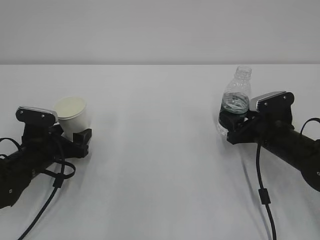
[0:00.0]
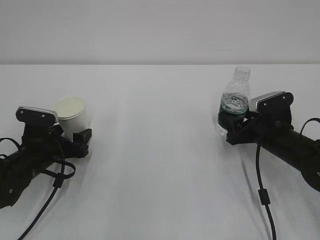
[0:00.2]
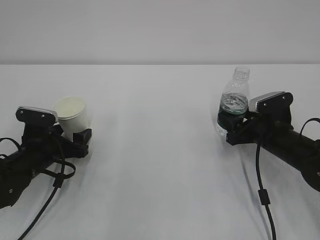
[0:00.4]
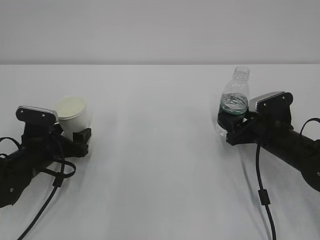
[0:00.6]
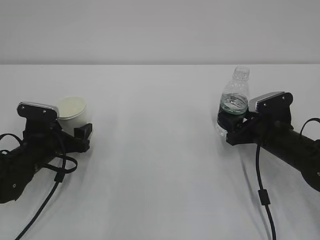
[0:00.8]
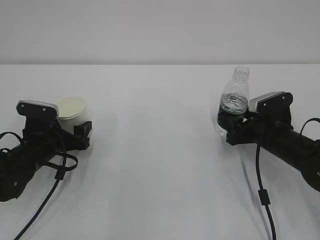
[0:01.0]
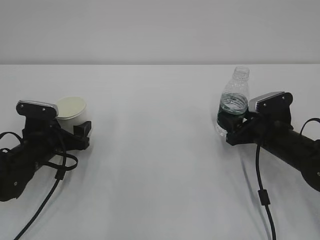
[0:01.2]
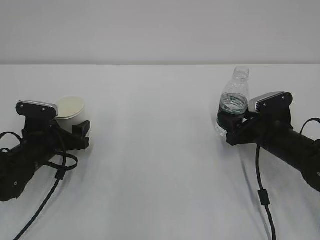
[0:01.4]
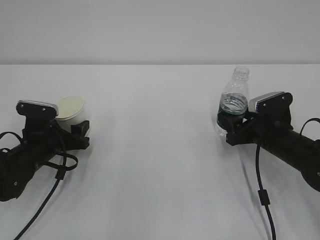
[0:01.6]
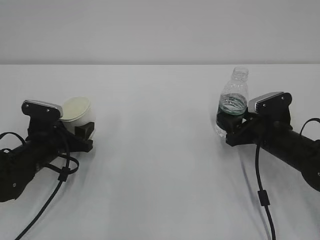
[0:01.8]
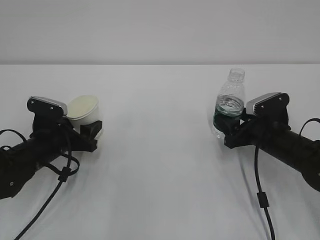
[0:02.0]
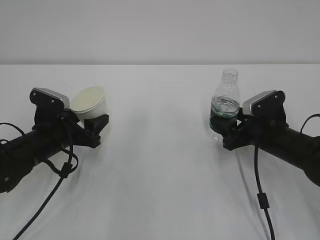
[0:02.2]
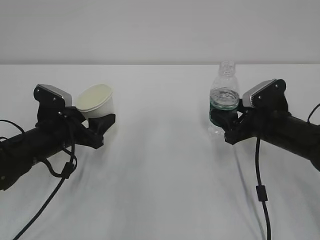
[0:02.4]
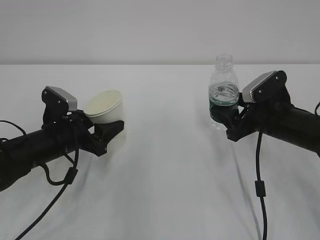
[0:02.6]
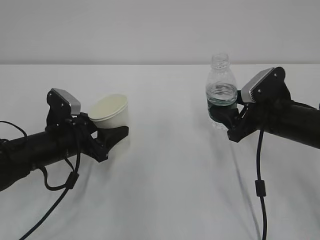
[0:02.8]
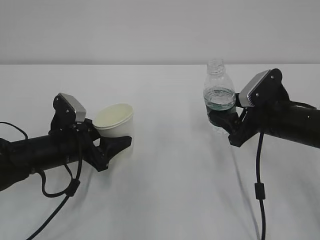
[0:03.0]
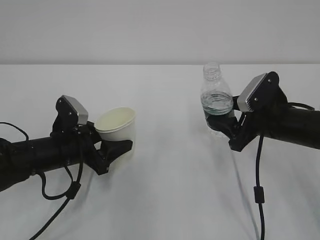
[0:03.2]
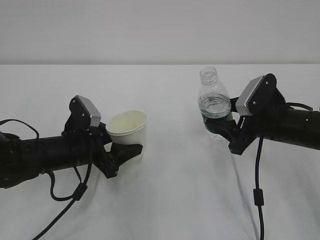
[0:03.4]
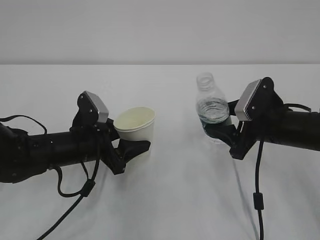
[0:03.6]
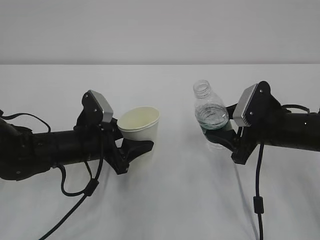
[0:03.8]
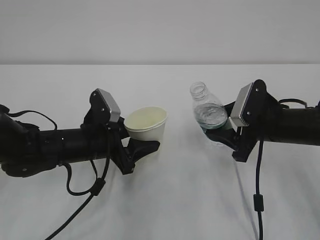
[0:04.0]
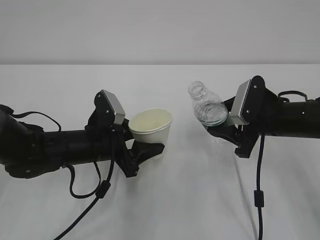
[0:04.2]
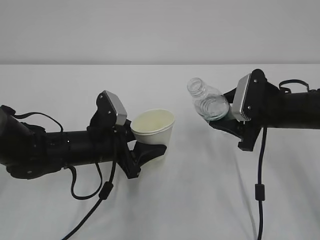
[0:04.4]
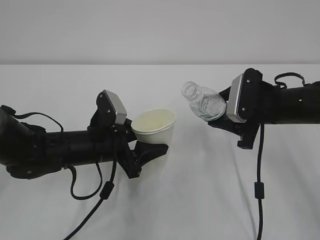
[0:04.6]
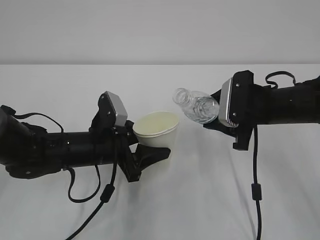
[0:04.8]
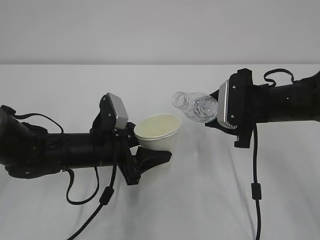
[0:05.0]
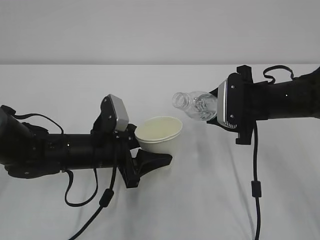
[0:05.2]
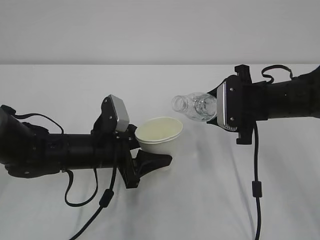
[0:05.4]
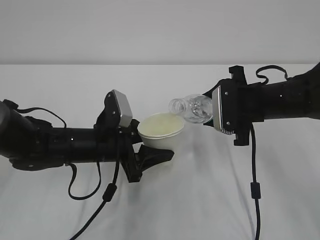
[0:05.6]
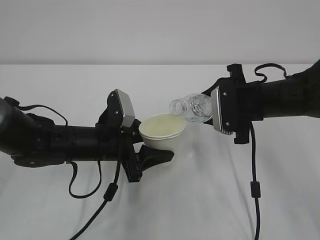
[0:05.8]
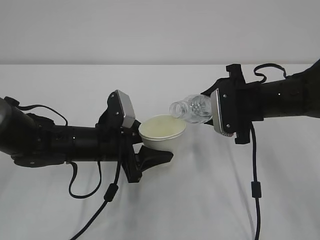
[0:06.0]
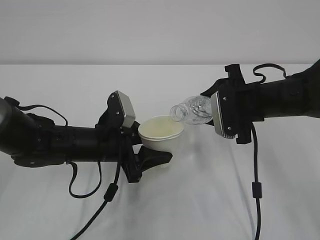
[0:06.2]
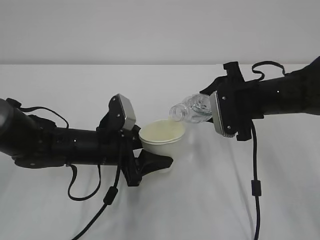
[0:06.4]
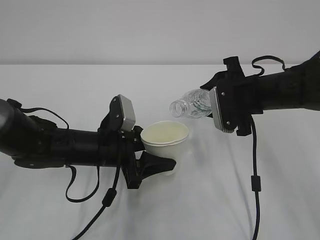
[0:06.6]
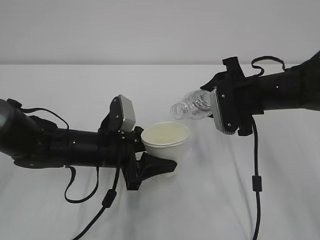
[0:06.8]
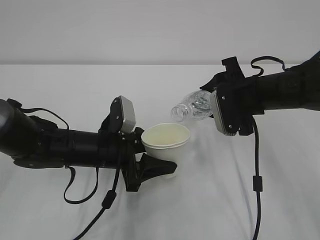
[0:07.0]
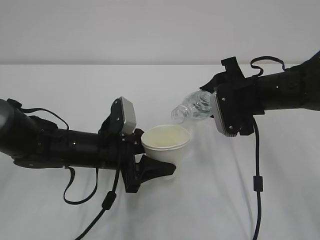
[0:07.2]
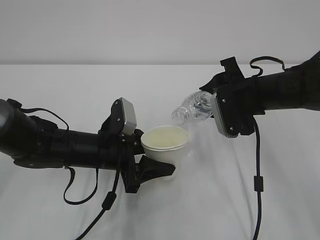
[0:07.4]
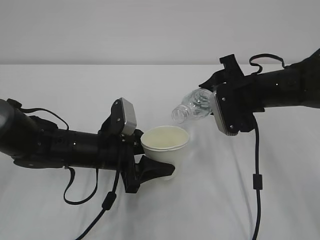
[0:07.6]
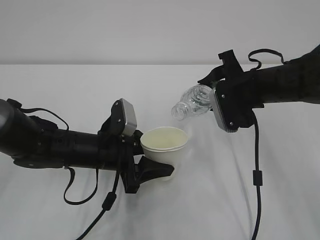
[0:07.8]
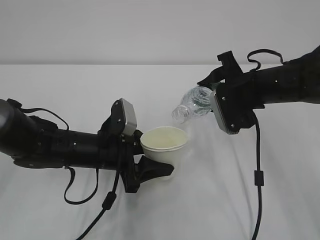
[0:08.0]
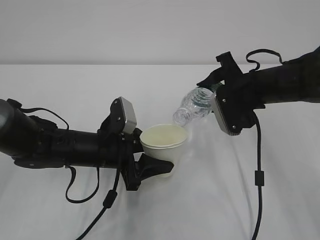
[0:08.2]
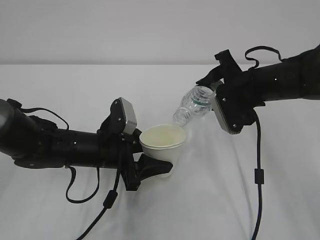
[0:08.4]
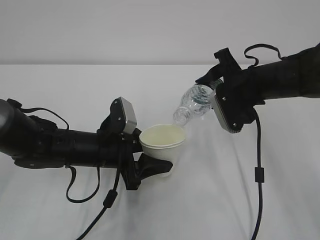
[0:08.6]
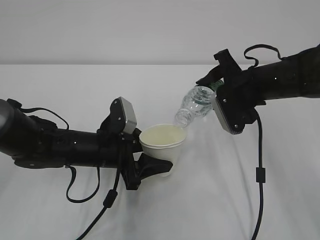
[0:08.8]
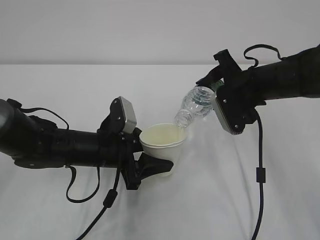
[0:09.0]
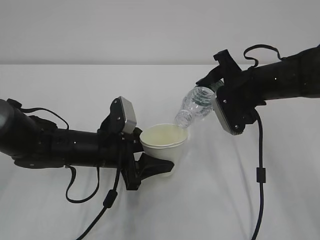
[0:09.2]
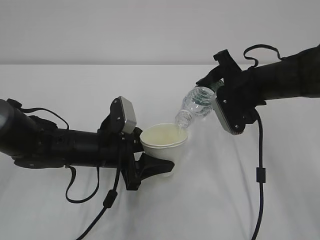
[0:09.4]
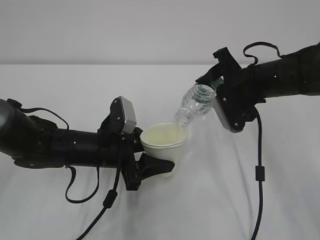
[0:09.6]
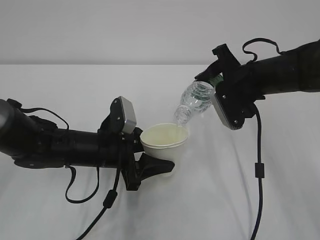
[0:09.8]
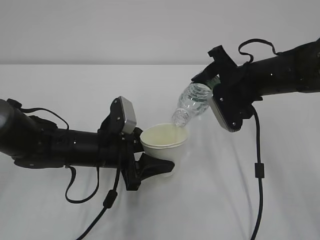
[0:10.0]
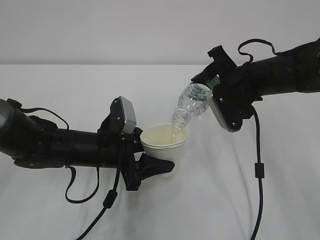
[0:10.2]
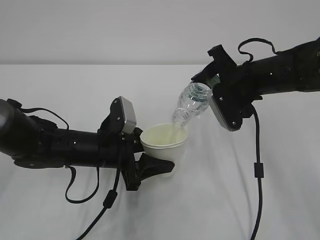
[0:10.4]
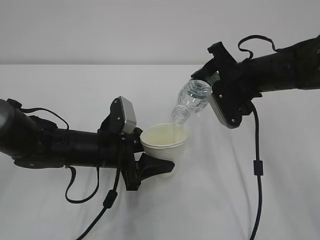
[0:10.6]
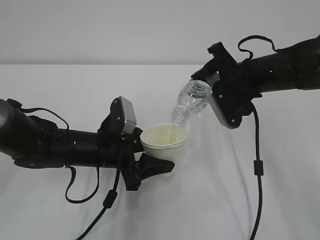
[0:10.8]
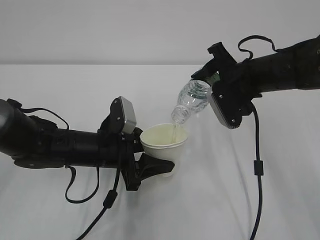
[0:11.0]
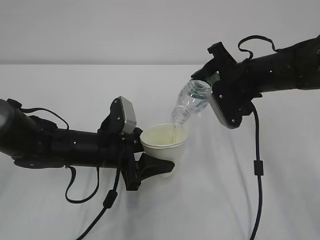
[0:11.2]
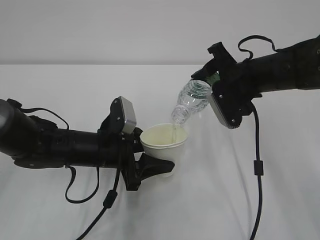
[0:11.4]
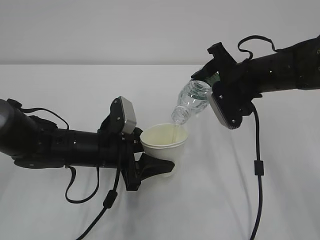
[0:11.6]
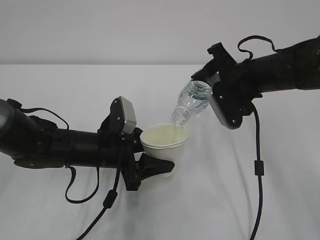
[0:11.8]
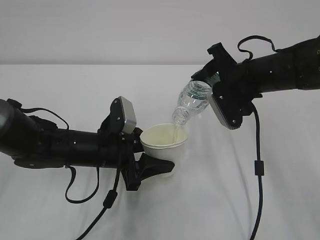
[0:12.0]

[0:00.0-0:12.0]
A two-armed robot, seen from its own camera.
0:00.0 to 0:01.6: The left gripper closes up.
0:01.6 to 0:03.0: The right gripper shifts roughly 5 cm upward; the left gripper goes roughly 5 cm to the right.
0:03.0 to 0:04.4: The left gripper goes some 5 cm to the right.
0:06.0 to 0:07.6: The grippers make only small movements.
0:07.6 to 0:09.0: The grippers stay close to where they were, moving slightly.
0:09.0 to 0:10.4: The two grippers keep their place.
0:10.4 to 0:12.0: Both grippers stay put.

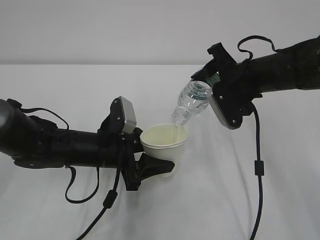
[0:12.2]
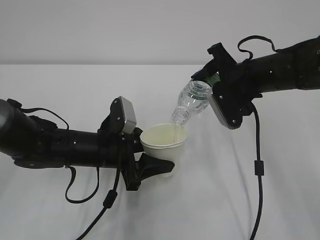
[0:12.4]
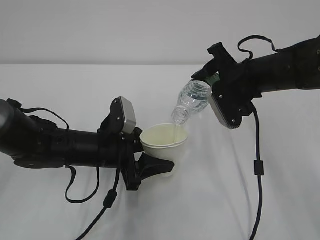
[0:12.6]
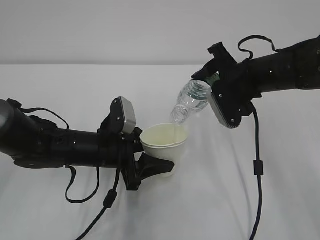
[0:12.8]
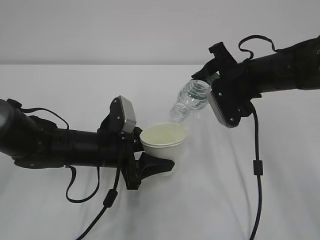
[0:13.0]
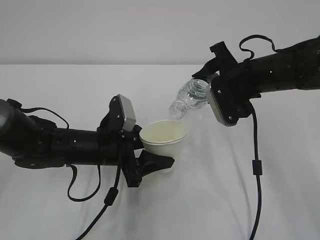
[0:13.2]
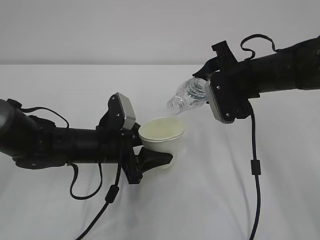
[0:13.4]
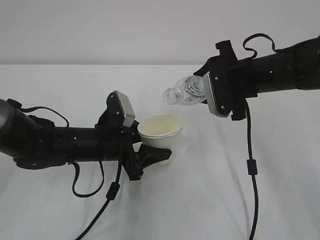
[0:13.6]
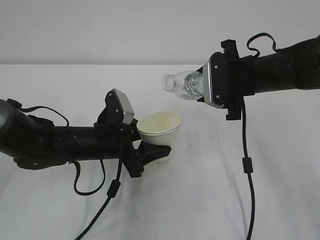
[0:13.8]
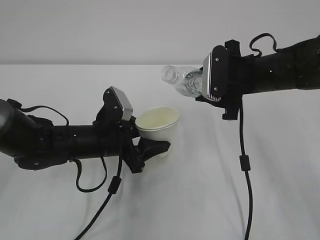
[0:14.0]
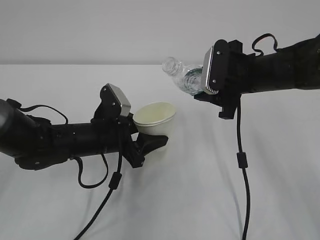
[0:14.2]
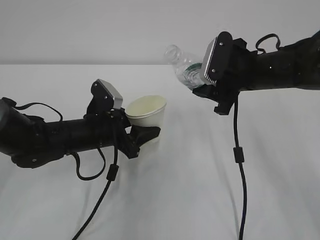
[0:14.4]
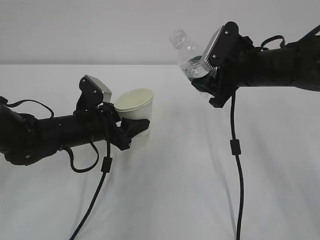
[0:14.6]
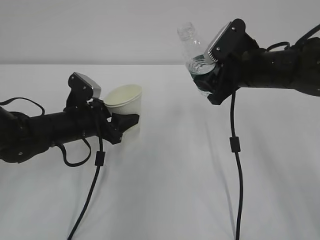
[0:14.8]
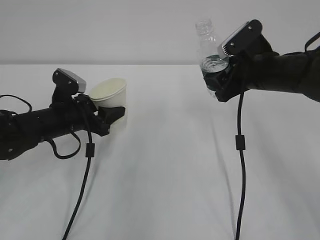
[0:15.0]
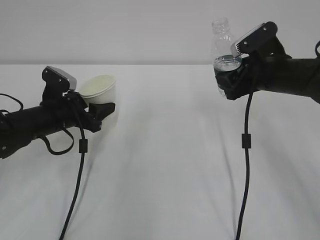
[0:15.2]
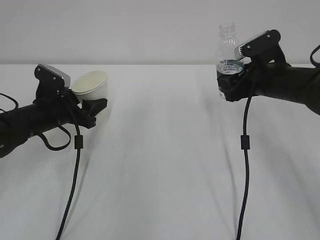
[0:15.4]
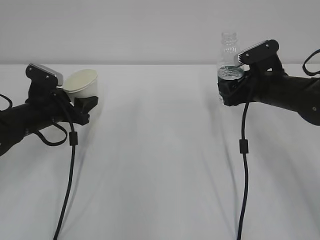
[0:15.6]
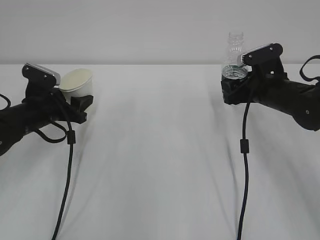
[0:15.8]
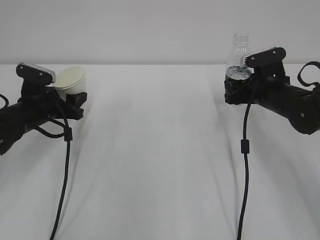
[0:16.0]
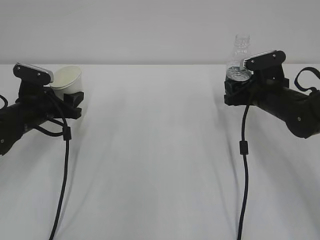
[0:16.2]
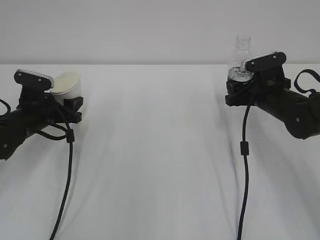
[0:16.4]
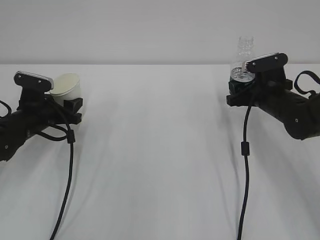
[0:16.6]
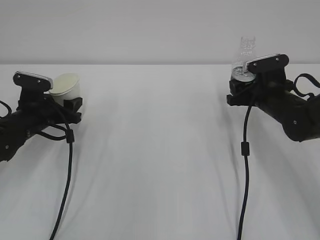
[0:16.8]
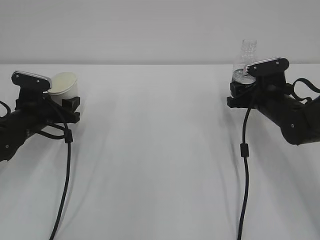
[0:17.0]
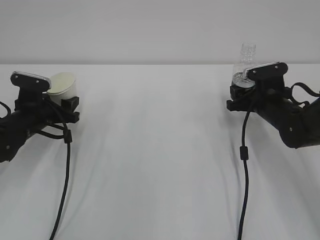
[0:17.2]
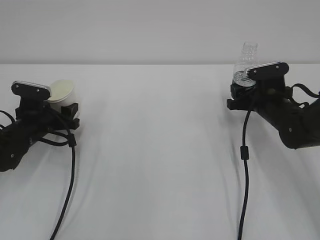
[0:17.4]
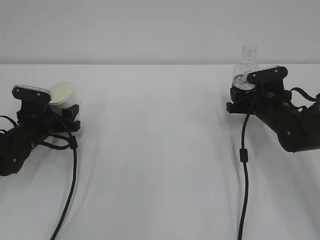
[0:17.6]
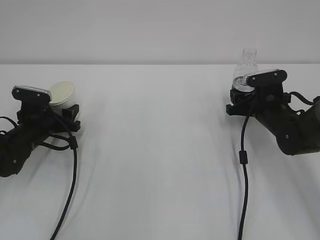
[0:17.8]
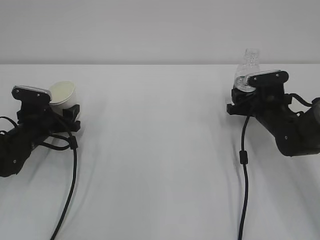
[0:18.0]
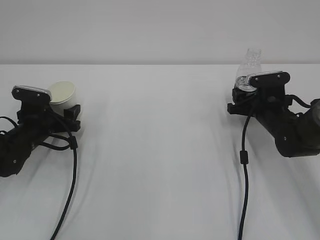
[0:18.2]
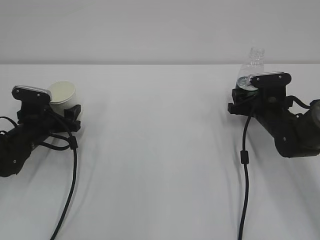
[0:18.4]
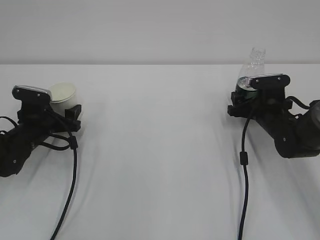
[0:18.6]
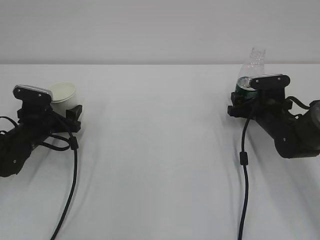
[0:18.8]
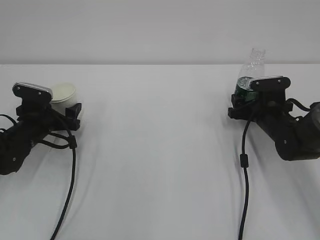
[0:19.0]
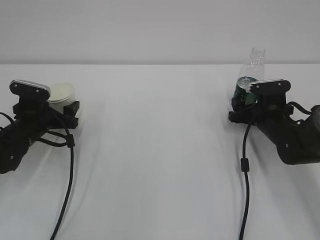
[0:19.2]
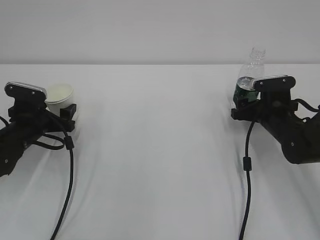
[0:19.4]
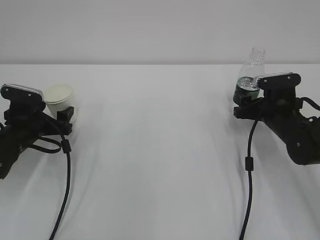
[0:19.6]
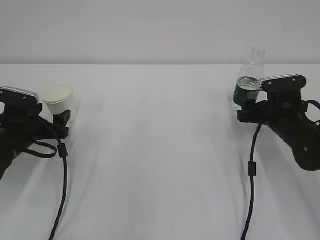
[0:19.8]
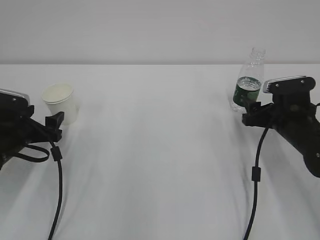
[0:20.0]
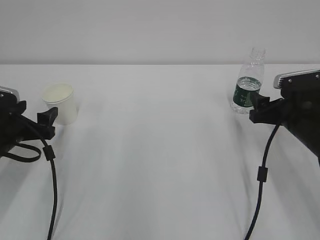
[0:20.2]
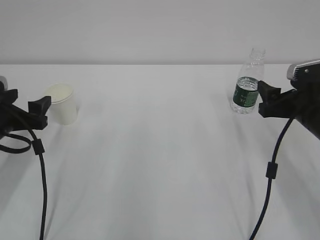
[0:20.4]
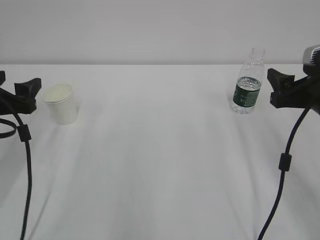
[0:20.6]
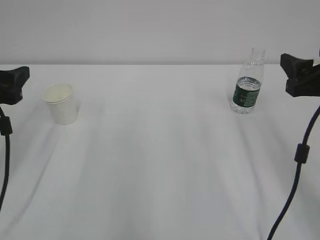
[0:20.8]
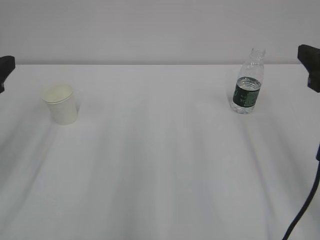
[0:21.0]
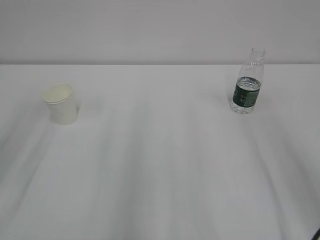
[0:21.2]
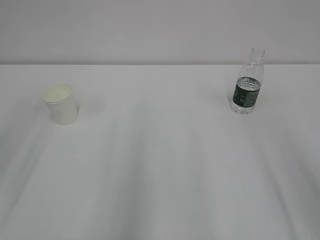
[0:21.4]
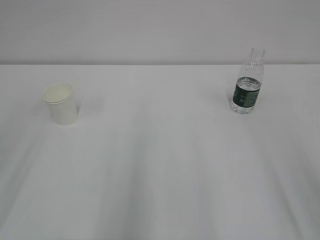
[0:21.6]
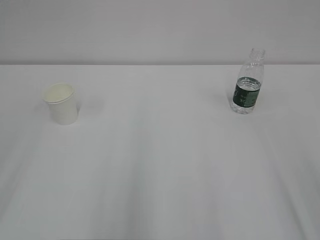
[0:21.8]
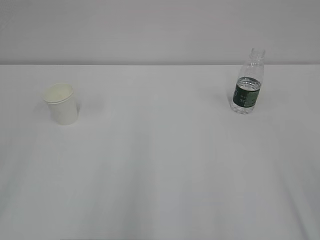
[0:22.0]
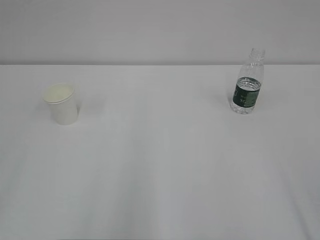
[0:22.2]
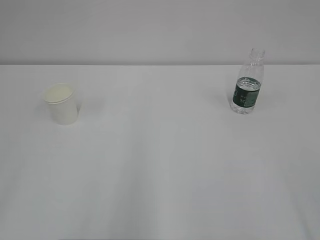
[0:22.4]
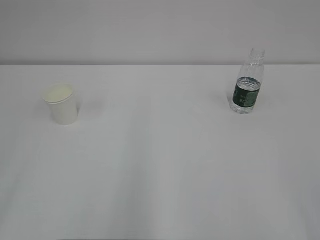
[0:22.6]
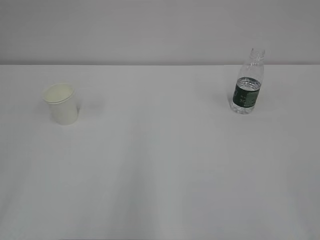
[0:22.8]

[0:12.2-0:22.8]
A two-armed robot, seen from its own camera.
0:13.8 to 0:15.2: The left gripper travels to the left and forward by approximately 10 cm.
0:15.2 to 0:16.8: The left gripper shifts by about 5 cm. The right gripper travels downward by roughly 10 cm.
0:16.8 to 0:18.2: The left gripper opens up.
0:18.2 to 0:19.8: The right gripper opens, while the left gripper opens its fingers.
0:19.8 to 0:21.2: Both grippers move upward and backward, some 25 cm.
